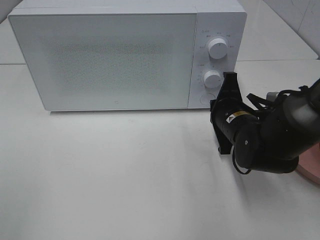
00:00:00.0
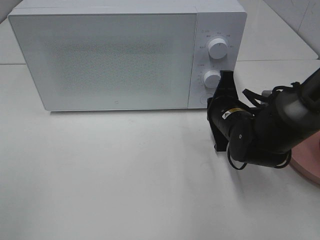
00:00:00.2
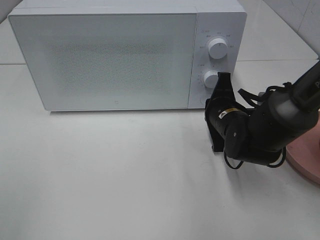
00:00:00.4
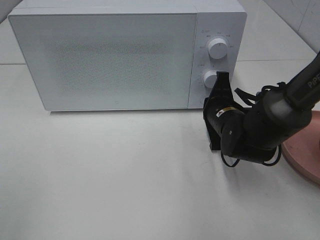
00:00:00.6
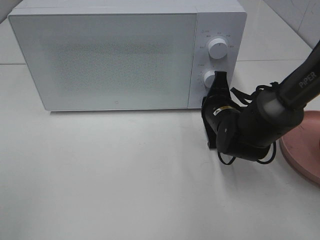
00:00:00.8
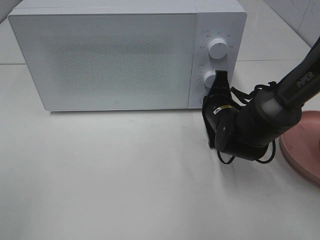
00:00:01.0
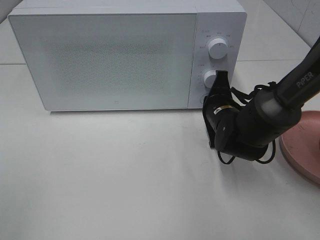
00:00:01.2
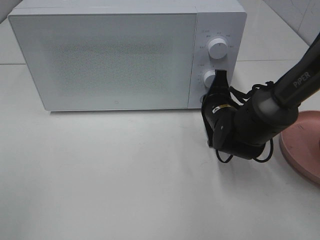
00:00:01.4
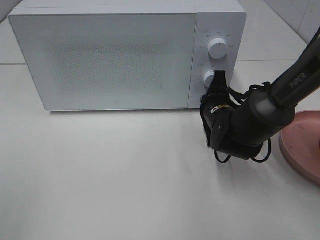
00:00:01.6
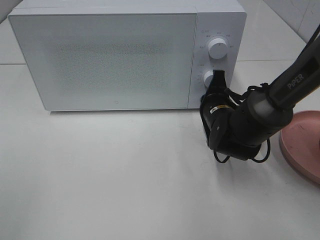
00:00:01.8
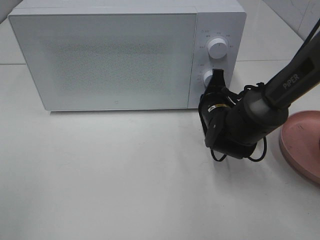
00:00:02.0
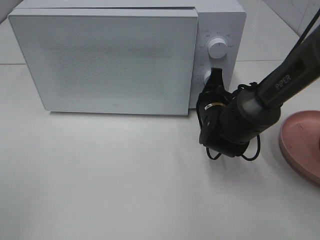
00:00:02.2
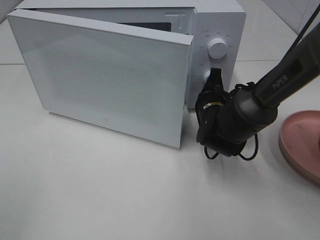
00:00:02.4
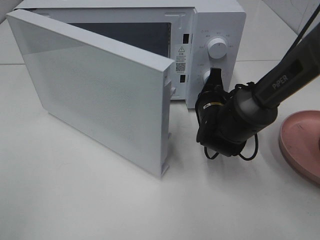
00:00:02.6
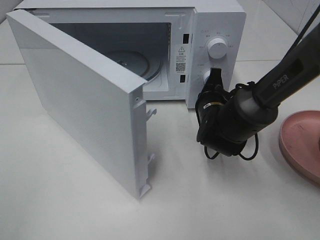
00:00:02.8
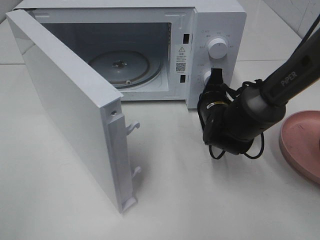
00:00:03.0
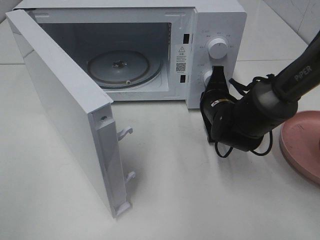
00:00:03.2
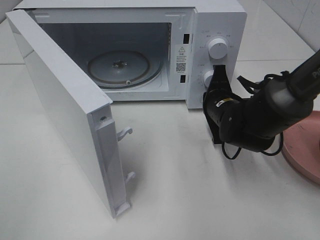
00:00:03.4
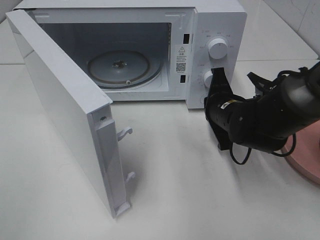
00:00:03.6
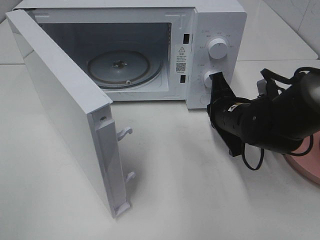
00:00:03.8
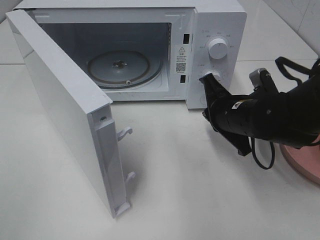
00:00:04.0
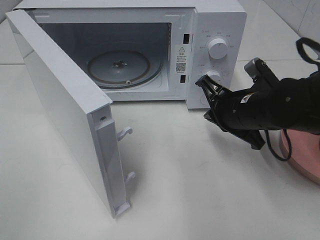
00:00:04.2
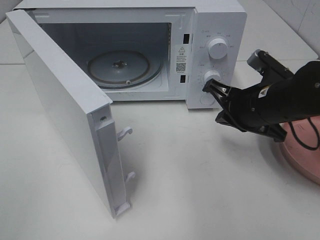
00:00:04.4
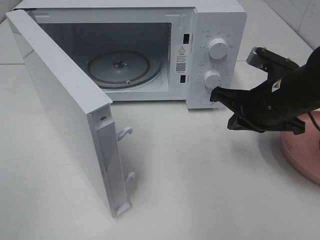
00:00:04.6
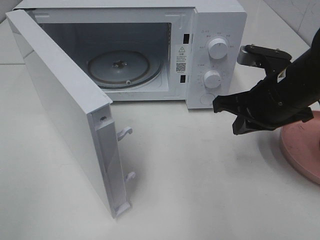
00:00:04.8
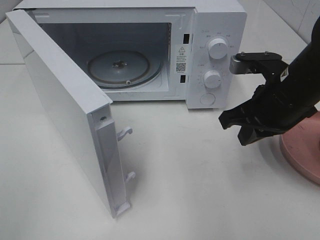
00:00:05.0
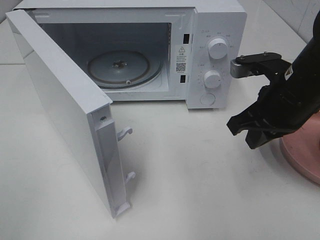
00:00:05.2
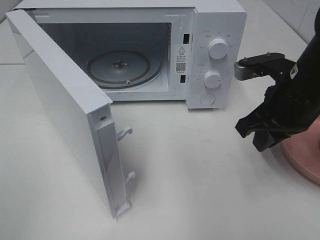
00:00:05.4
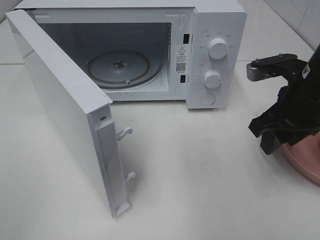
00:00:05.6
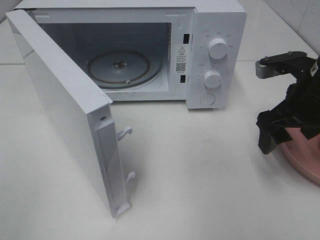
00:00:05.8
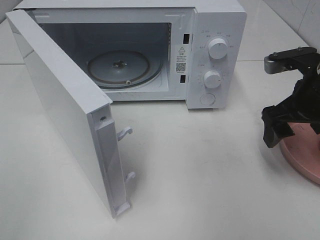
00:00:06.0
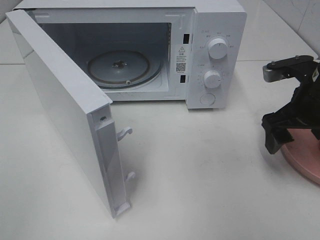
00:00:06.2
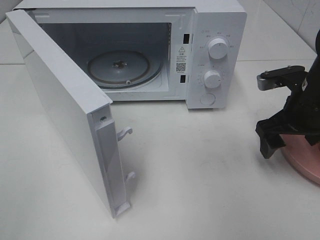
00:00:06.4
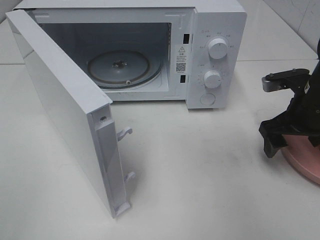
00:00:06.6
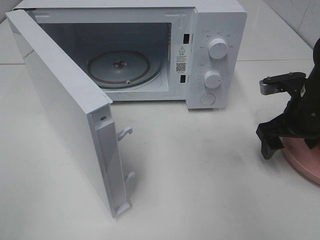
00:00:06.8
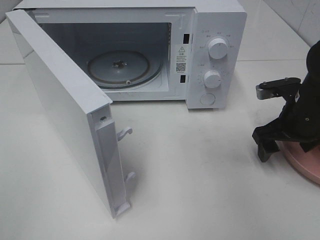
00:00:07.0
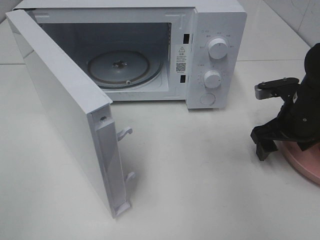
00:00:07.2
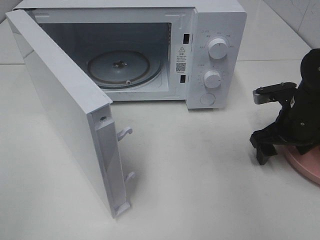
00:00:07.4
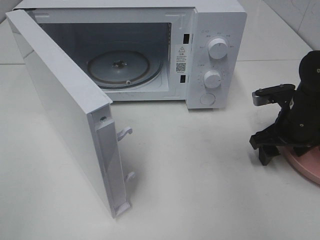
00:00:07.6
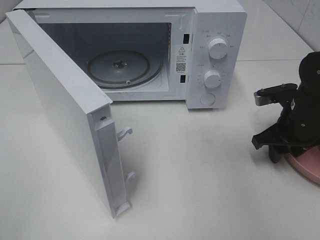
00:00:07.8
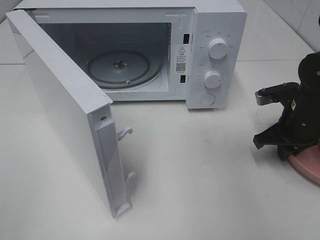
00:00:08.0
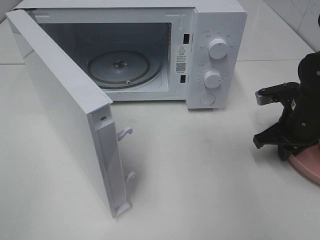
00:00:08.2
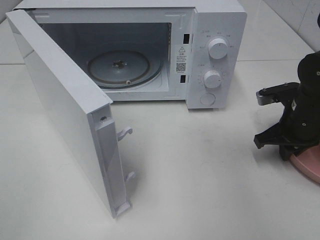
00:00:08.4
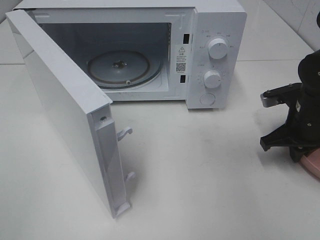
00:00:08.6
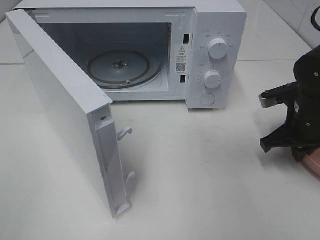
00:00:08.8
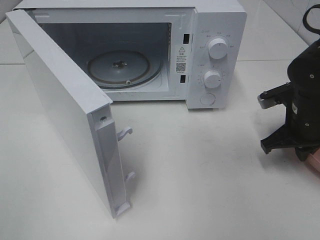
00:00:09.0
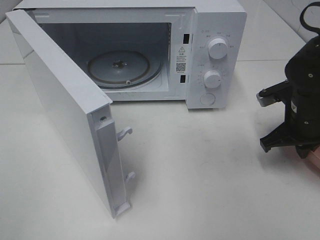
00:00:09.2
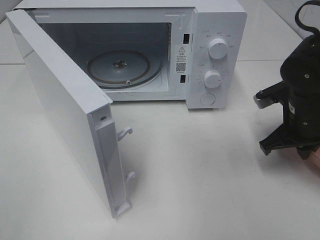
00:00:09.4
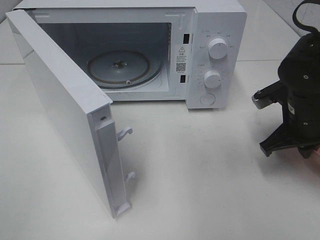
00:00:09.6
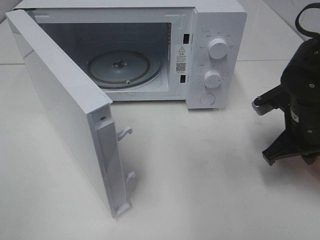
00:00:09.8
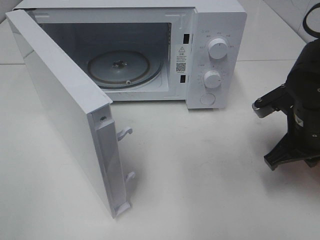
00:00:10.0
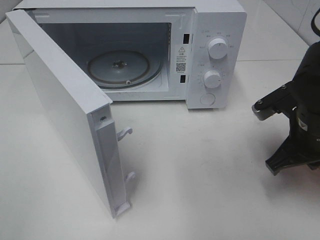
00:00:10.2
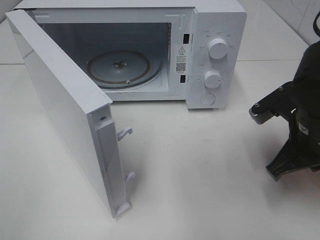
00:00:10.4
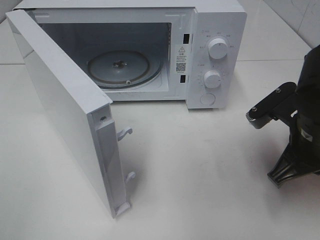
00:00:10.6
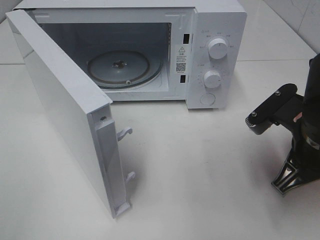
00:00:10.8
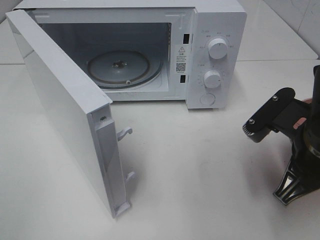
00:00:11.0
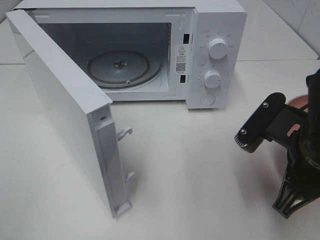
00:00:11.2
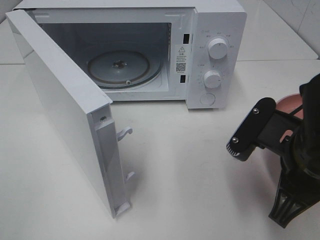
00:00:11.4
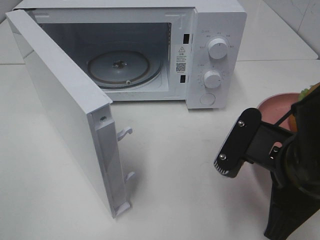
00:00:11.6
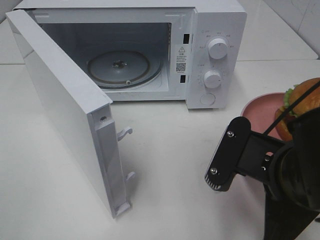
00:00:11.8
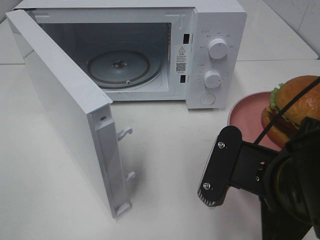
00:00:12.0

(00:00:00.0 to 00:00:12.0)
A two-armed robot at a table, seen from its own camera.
Task of the whole recording: Heat the burger.
Step, 00:00:00.0 - 00:00:03.6: Right hand: press the switch.
Step, 00:00:03.8 - 00:00:08.8: Right hand: grab the plate with the hamburger.
00:00:00.0 - 00:00:01.6: There are only small adjustments of the grippers.
00:00:03.0 - 00:00:04.4: The right gripper goes roughly 10 cm upward and backward.
00:00:04.4 - 00:00:06.0: The right gripper travels to the right by approximately 5 cm, and opens.
00:00:06.0 - 00:00:07.6: The right gripper heads downward, covering roughly 10 cm.
00:00:07.6 - 00:00:09.0: The right gripper closes.
00:00:09.0 - 00:00:10.4: The right gripper heads backward, covering about 10 cm.
00:00:10.4 - 00:00:12.0: The right gripper shifts approximately 15 cm backward and to the left.

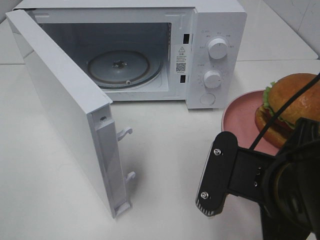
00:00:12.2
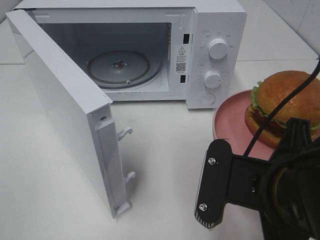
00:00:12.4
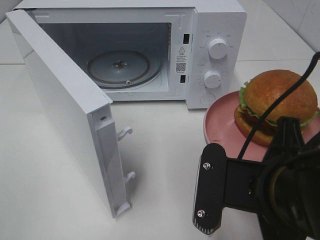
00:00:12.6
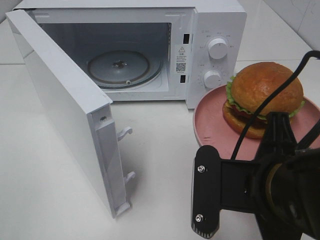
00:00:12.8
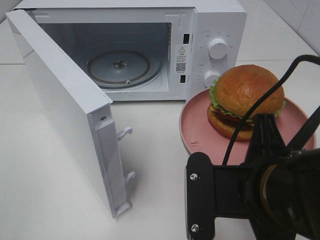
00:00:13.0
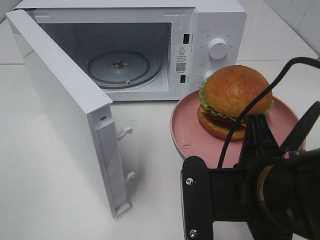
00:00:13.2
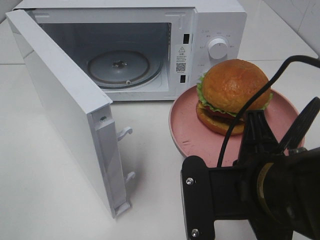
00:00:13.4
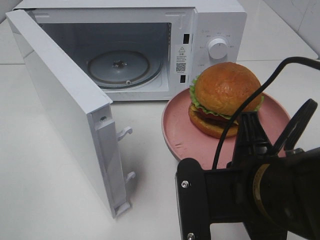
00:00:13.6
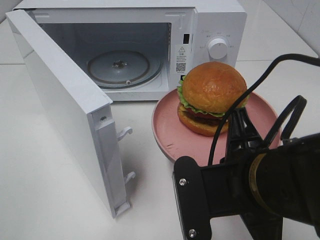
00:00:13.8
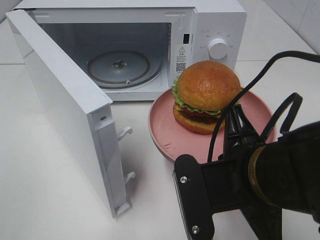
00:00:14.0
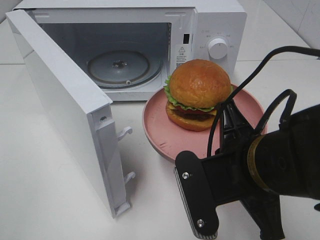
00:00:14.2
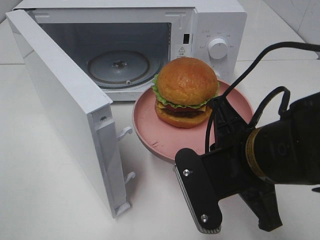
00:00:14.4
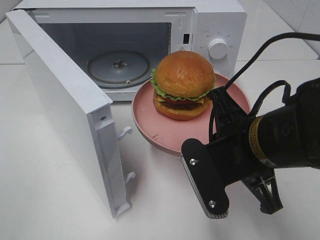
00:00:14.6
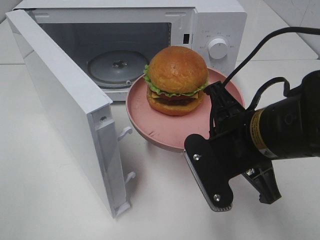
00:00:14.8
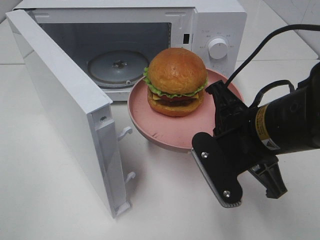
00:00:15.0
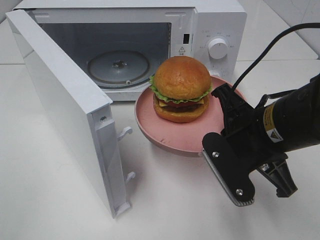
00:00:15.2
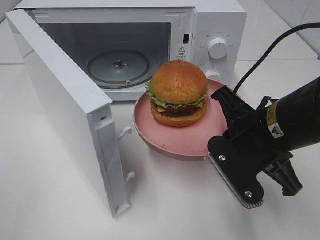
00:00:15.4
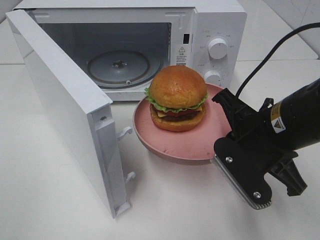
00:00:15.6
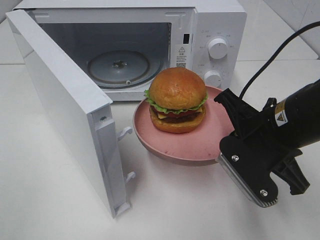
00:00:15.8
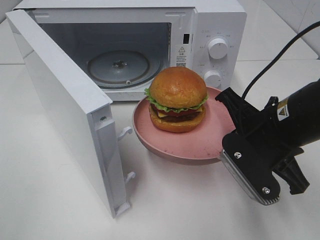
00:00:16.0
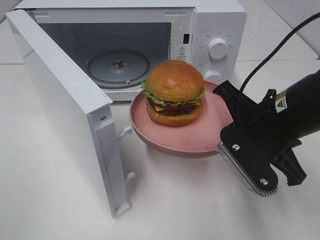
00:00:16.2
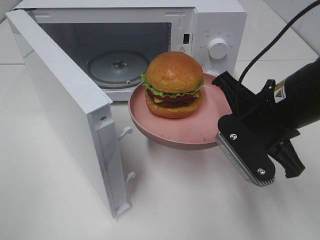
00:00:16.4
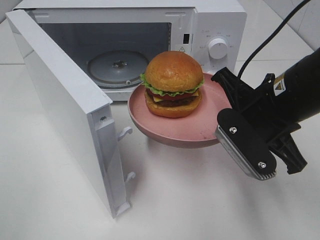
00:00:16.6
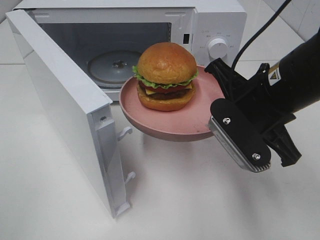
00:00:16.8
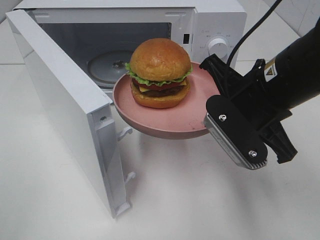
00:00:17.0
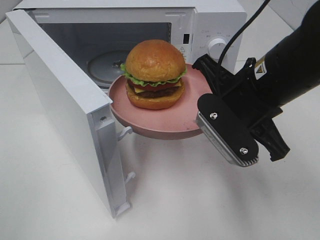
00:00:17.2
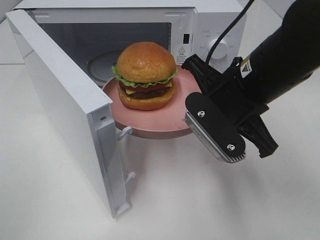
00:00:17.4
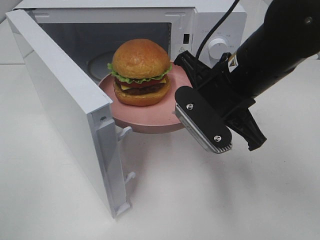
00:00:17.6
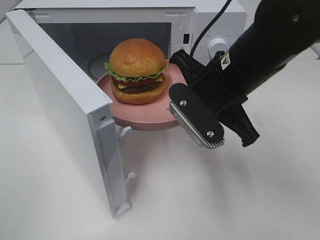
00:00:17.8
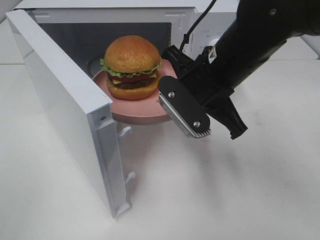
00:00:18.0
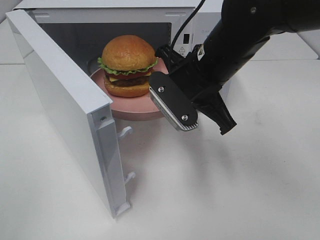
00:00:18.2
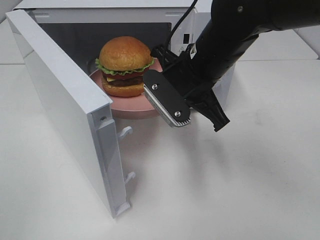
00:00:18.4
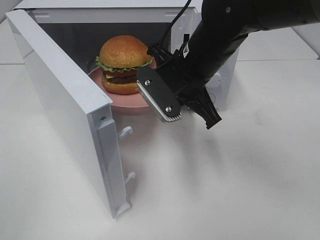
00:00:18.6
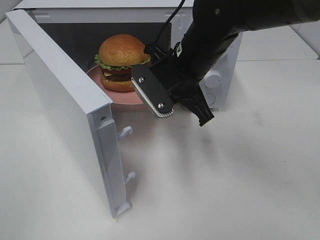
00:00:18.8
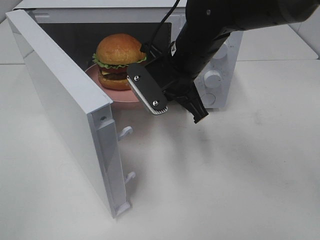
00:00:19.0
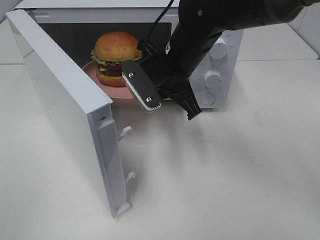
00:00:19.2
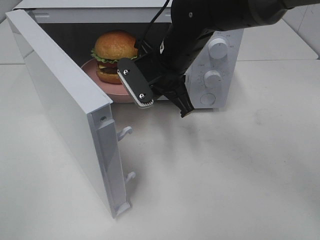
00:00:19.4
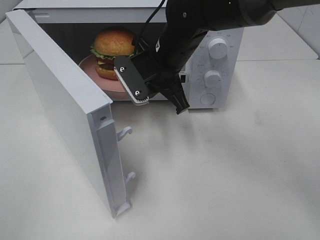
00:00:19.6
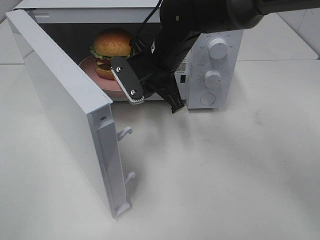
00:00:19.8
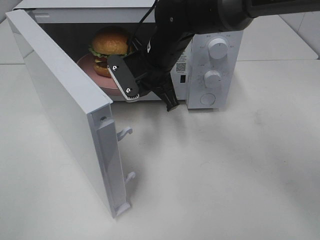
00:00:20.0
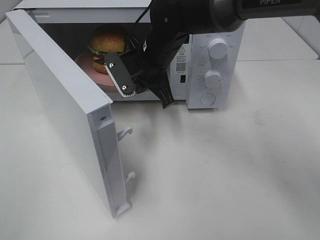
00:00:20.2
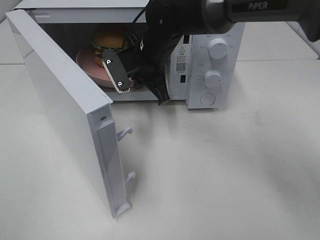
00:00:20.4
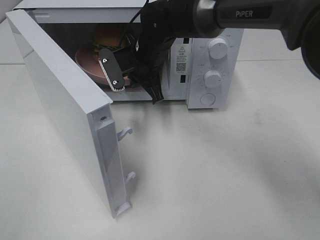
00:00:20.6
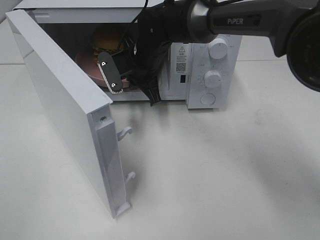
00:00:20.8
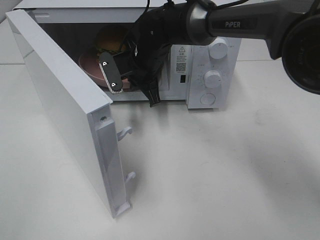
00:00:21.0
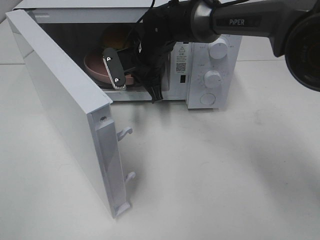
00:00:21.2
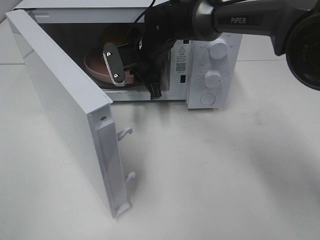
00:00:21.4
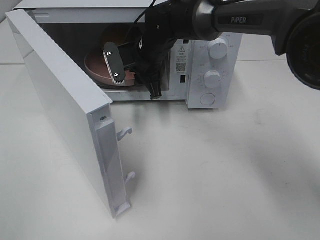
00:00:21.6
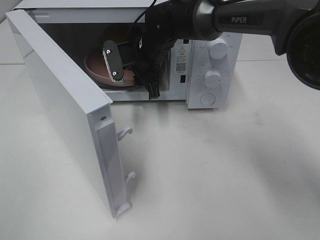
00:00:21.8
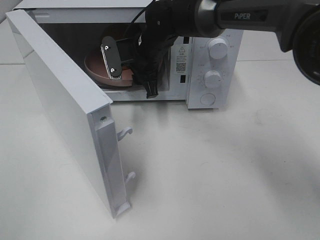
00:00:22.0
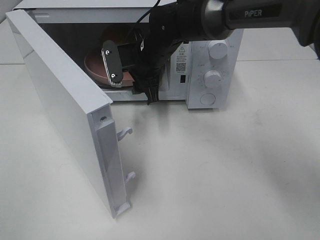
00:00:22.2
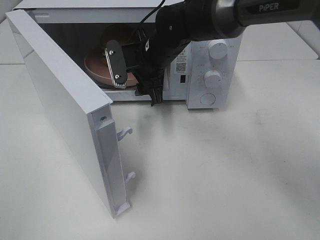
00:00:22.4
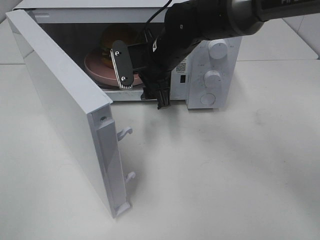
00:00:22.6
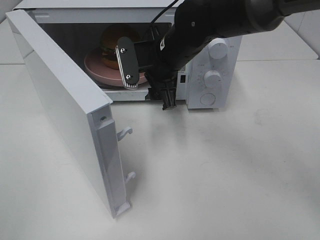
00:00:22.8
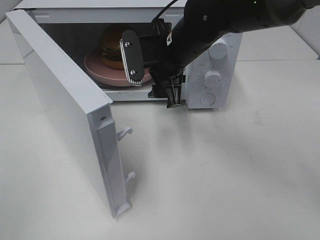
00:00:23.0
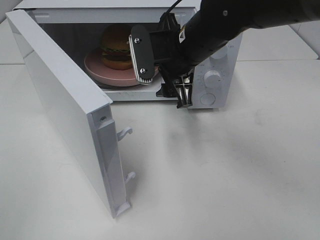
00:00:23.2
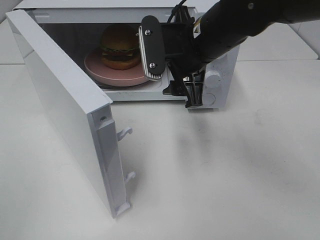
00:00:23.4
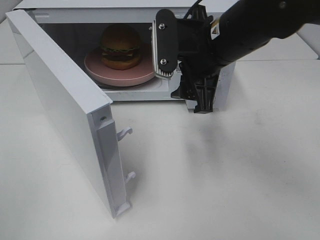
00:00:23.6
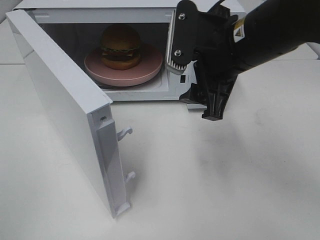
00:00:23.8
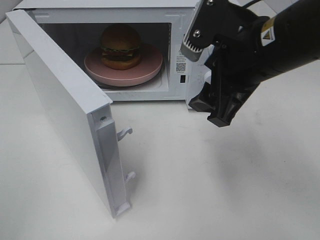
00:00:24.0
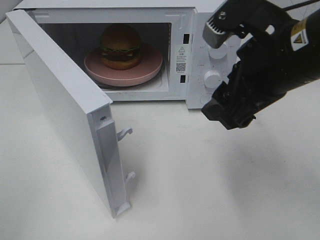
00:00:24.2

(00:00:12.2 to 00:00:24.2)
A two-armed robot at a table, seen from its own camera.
Task of the whole recording: Heat the burger.
Step, 00:00:12.2 - 00:00:22.0: Right hand: place the plate in the microwave.
00:00:13.8 - 00:00:15.2: The right gripper goes about 10 cm forward.
00:00:15.2 - 00:00:16.6: The grippers move only a little.
00:00:16.6 - 00:00:18.2: The right gripper goes some 10 cm to the left and forward.
00:00:18.2 - 00:00:19.8: The right gripper travels forward and to the left by roughly 10 cm.
00:00:19.8 - 00:00:21.2: The right gripper heads forward, covering about 5 cm.
00:00:21.2 - 00:00:22.6: The right gripper travels backward by about 5 cm, and opens up.
00:00:22.6 - 00:00:24.2: The right gripper shifts some 25 cm backward, to the right and upward.
